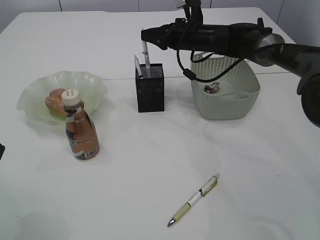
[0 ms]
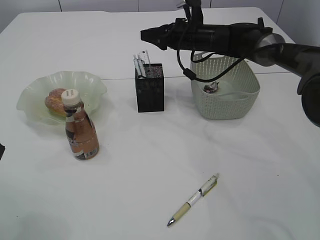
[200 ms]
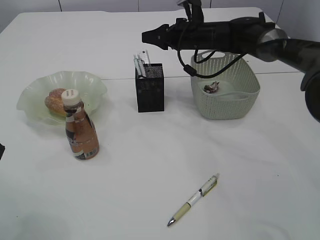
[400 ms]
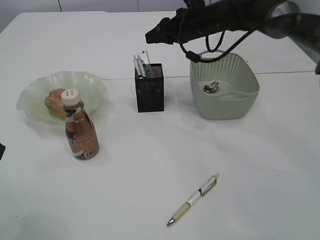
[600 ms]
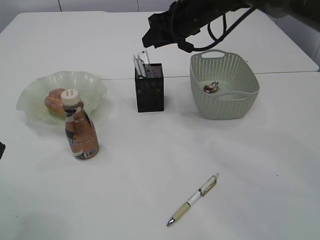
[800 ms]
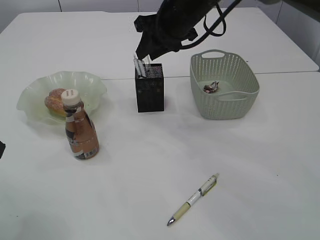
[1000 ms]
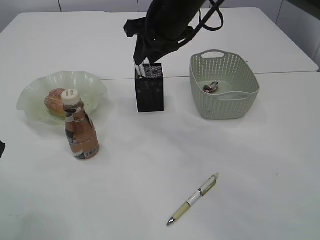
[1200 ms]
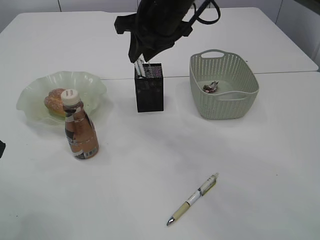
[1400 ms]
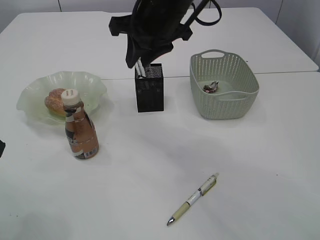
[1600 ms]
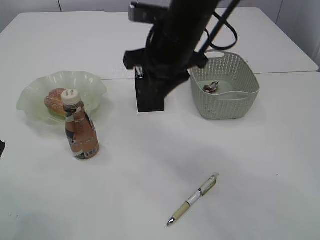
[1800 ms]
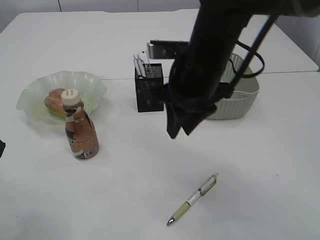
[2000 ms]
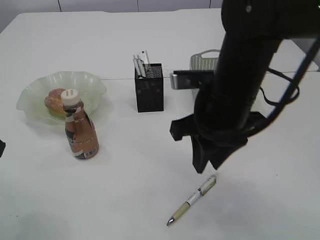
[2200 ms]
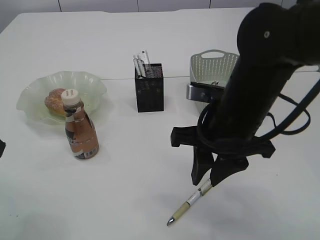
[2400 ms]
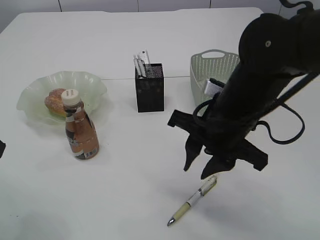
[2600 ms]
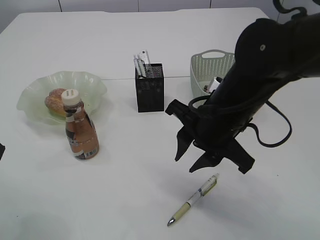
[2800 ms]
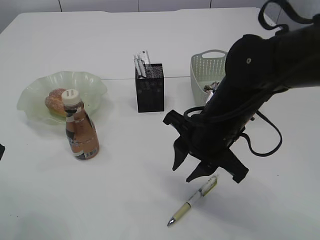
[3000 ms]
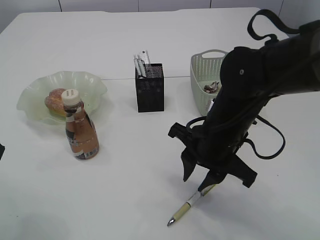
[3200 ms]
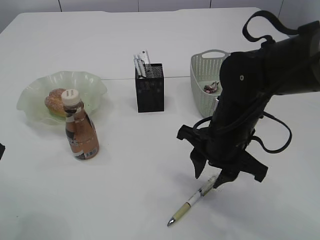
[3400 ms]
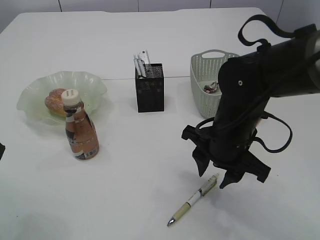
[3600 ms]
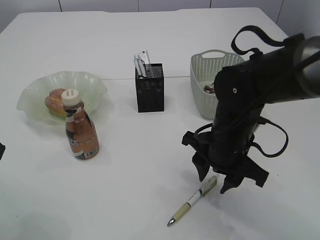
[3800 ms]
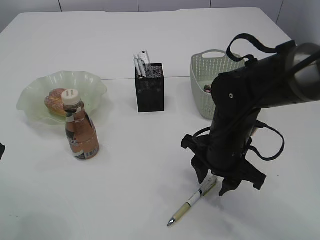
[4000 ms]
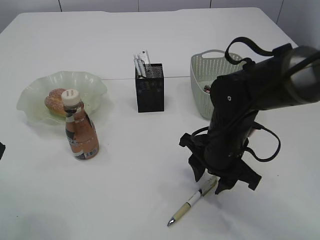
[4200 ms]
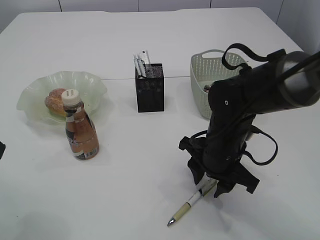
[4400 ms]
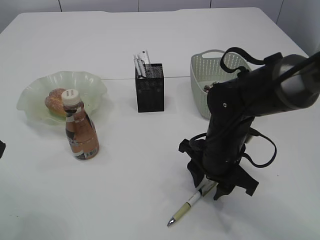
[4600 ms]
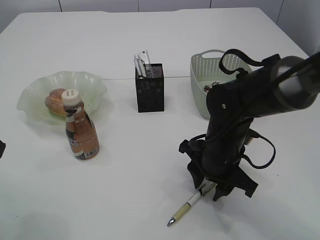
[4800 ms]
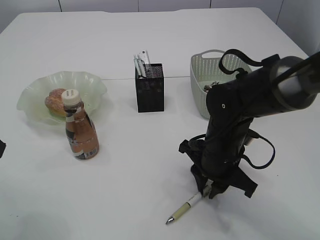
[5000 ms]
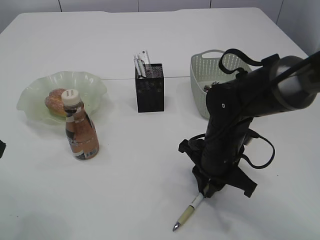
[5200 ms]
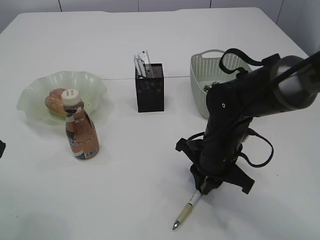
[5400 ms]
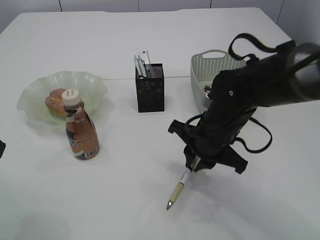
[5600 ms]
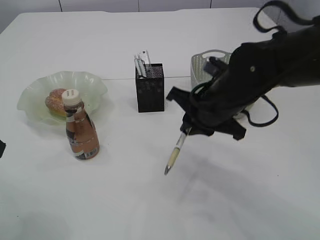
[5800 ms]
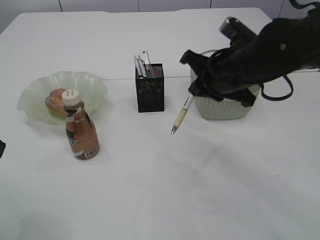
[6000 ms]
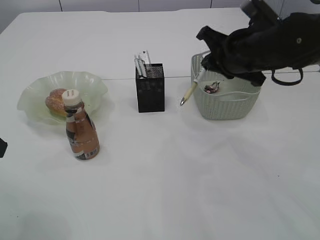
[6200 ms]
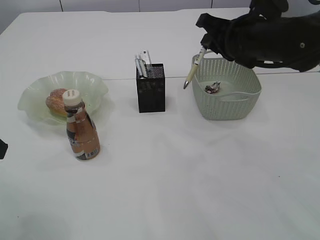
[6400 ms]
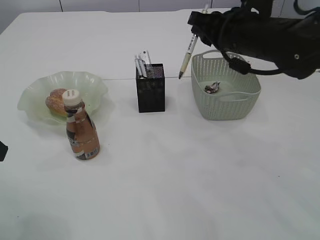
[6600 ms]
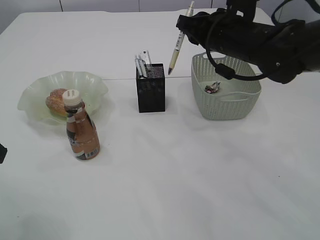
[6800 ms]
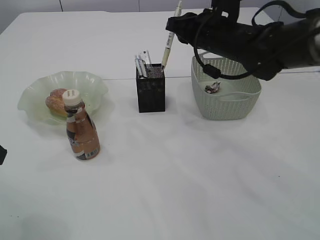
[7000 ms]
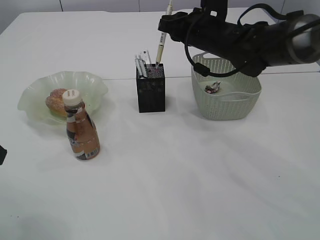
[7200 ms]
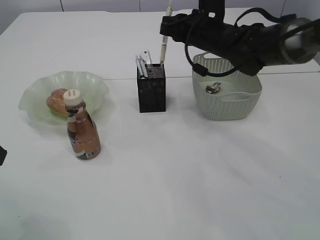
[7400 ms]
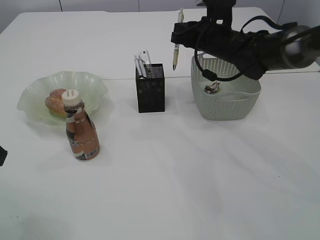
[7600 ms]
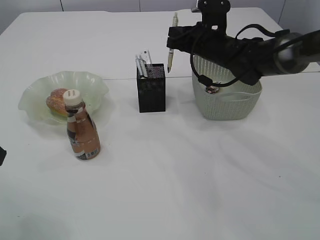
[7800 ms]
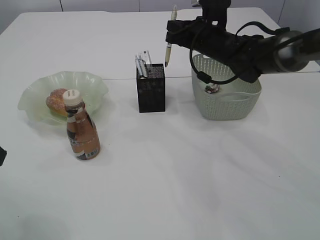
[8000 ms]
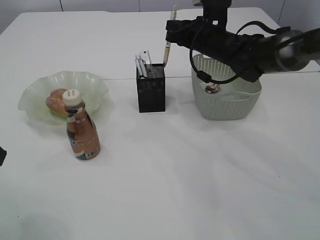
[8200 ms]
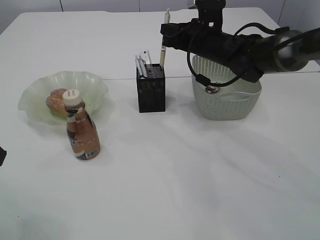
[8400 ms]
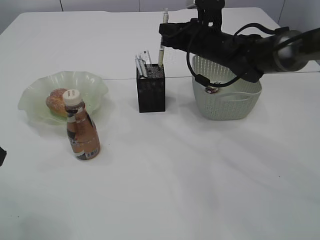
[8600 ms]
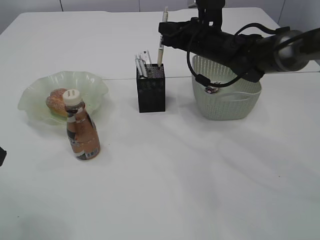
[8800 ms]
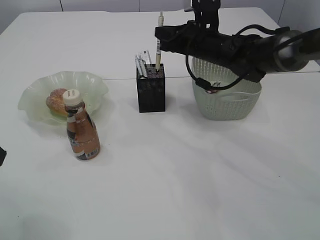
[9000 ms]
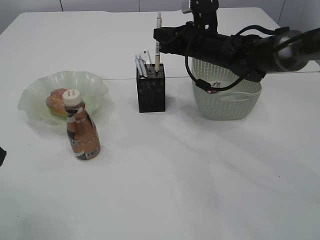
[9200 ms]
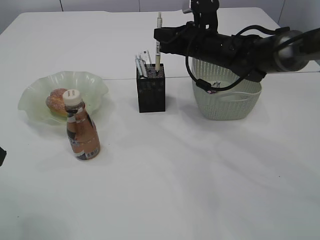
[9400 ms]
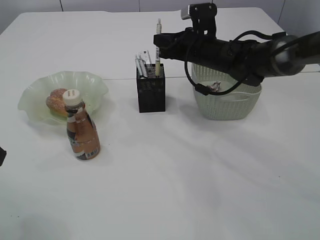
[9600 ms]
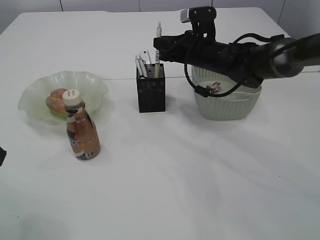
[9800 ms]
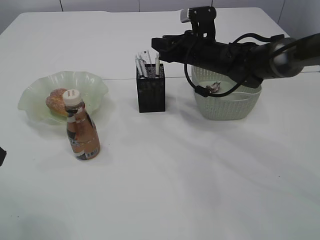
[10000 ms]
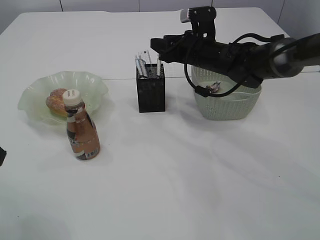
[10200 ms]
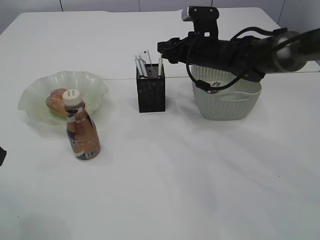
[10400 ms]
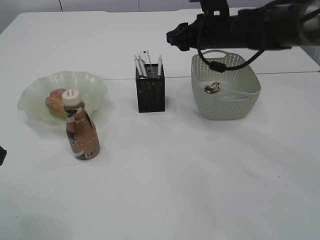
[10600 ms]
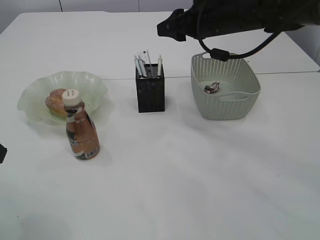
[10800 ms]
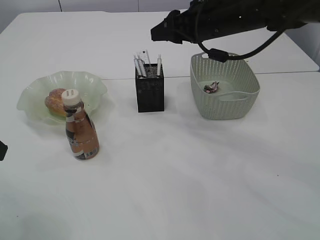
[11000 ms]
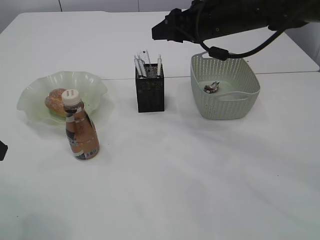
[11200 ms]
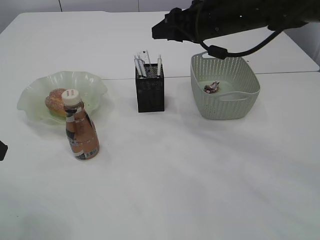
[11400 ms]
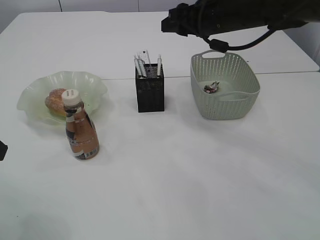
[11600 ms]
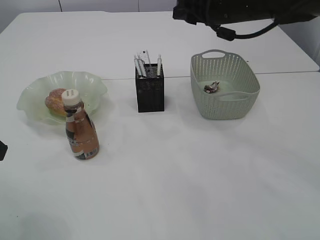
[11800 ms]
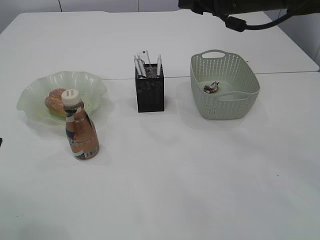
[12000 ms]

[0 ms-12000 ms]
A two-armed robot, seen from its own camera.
Step, 800 ms to 5600 ms: Pick up the pen with right arm.
Step, 5800 ms to 11800 ms: Place the pen into the pen holder.
0 ms to 1600 ms: The right gripper shifts approximately 20 cm backward, upward and to the left.
1600 ms to 3000 ms: The right gripper goes about 20 cm downward, backward and to the right.
3000 ms to 4400 ms: The right gripper is displaced downward by about 5 cm.
4400 ms to 6000 ms: The right gripper travels upward by roughly 10 cm, and closes its fingers.
6000 ms to 7600 ms: The right gripper shifts some 15 cm forward.
7600 ms to 9000 ms: The grippers make only small movements.
9000 ms to 10400 ms: The right gripper opens.
10400 ms to 12000 ms: The right gripper travels upward and backward by about 15 cm.

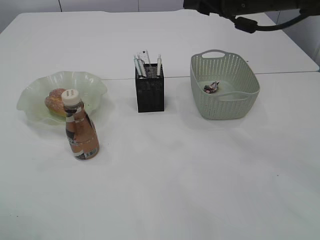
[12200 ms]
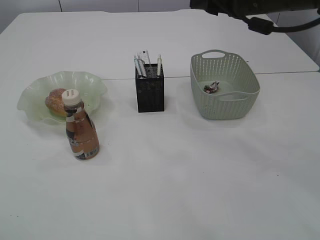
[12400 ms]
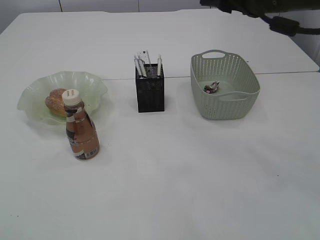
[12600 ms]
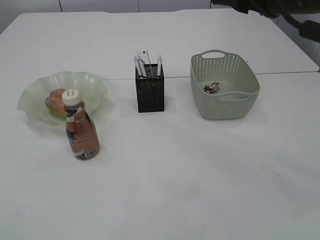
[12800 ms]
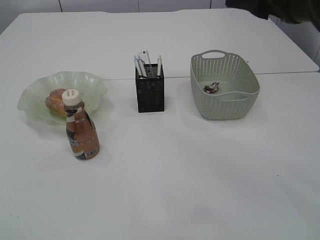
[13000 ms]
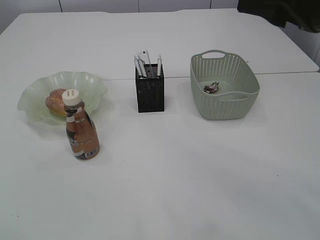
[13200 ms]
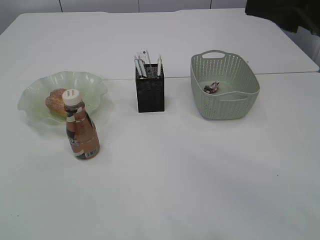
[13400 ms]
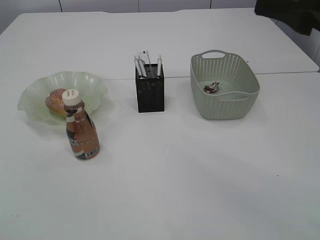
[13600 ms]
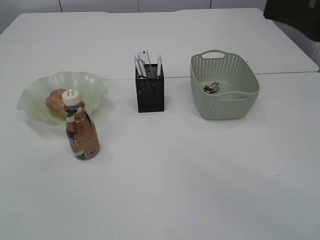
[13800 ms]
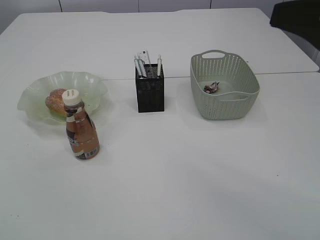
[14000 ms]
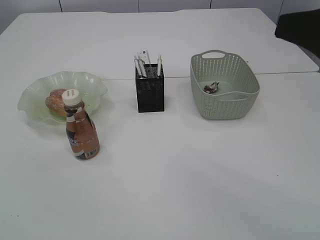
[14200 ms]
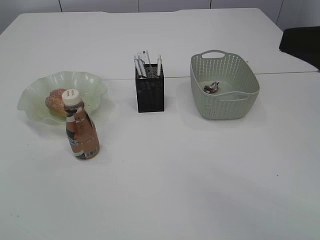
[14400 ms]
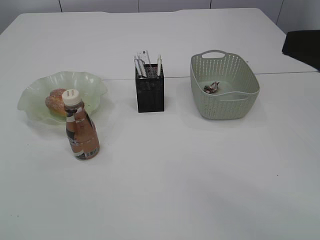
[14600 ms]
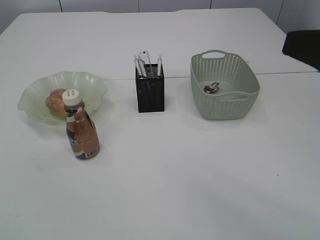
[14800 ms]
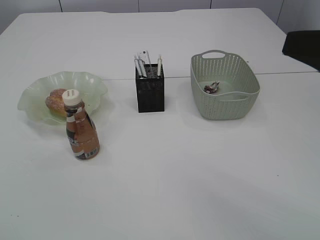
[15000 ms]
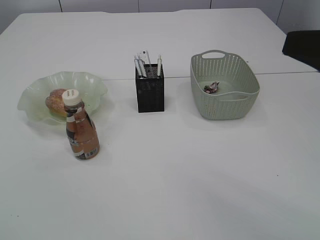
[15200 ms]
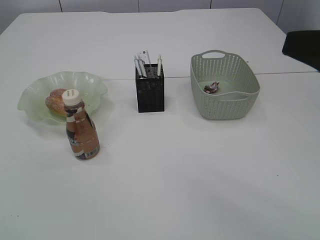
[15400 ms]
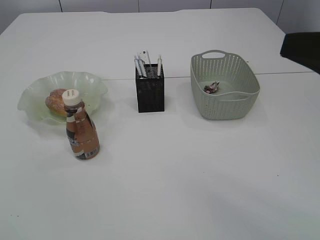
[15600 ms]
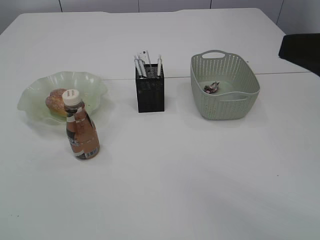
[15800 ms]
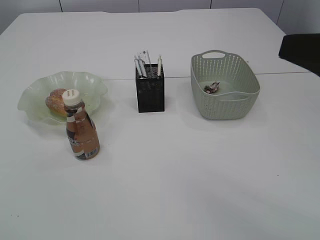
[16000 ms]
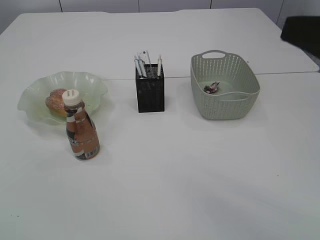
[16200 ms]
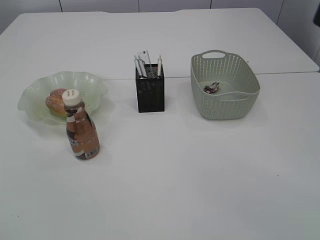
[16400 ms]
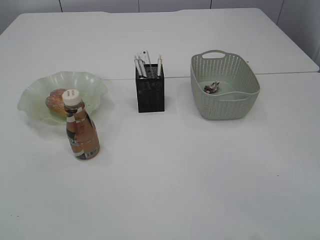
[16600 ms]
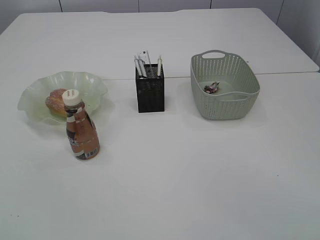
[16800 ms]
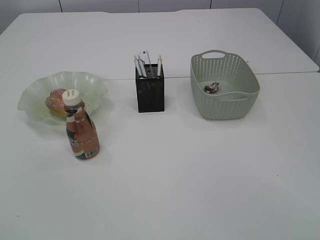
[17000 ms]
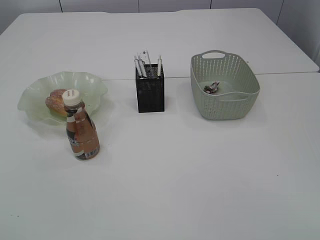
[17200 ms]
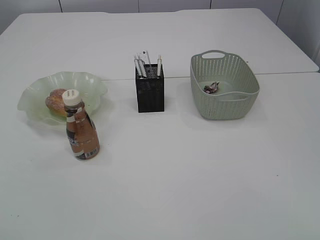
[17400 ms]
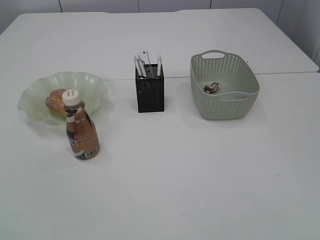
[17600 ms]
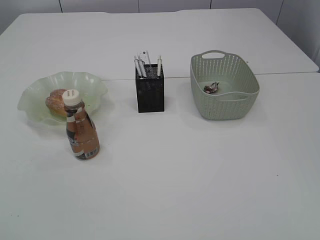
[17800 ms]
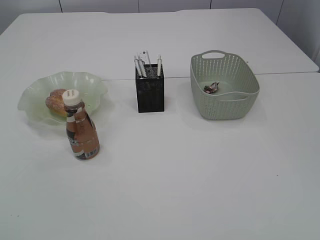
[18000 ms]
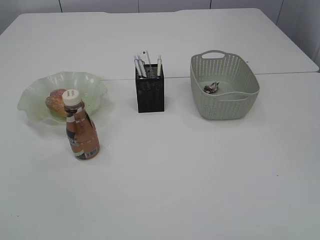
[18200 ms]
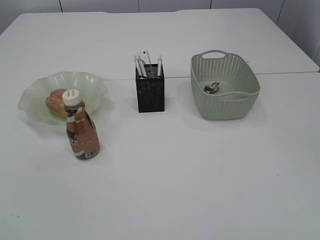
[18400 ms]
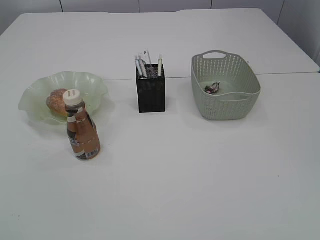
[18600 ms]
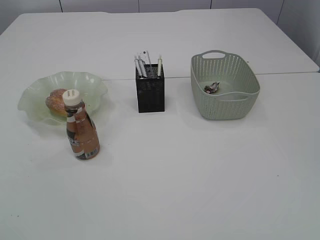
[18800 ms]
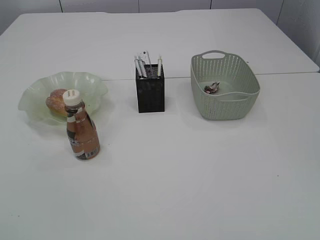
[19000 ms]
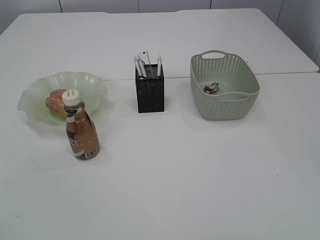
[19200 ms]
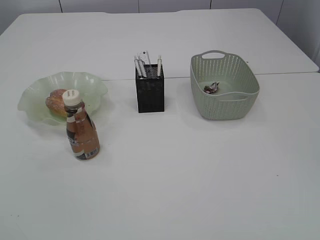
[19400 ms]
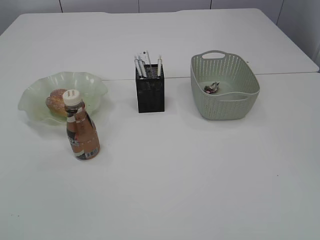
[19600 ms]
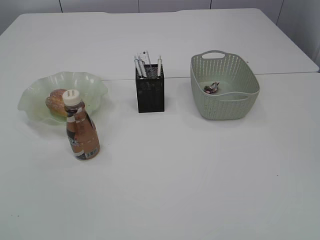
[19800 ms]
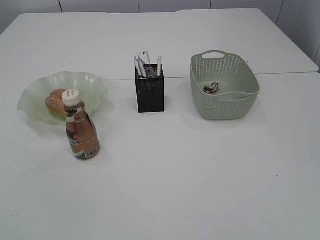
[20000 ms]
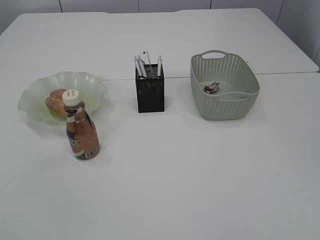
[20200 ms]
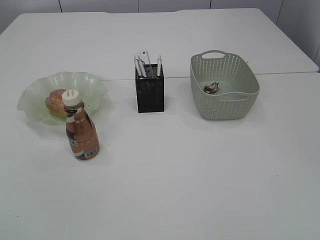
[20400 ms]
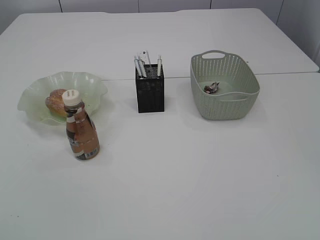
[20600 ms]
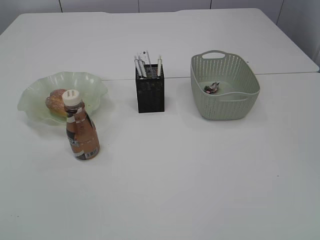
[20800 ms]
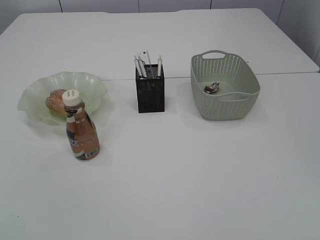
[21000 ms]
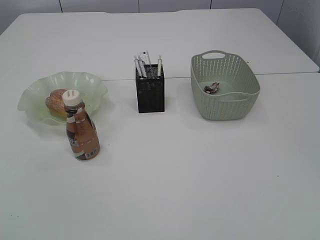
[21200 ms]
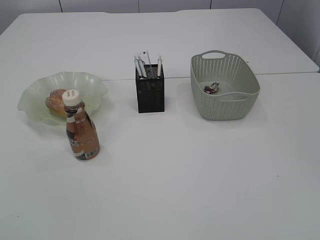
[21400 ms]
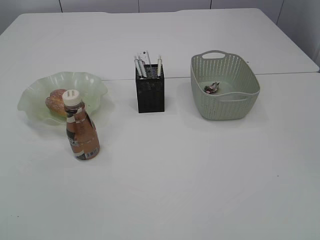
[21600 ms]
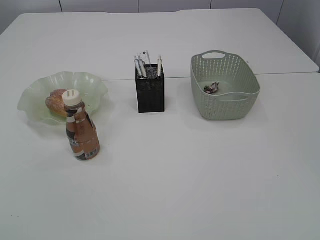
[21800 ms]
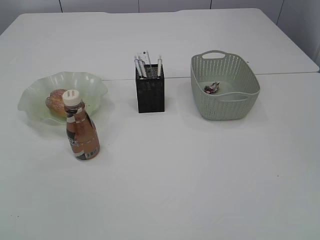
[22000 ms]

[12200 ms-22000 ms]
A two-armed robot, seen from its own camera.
12200 ms to 13600 ms: The two grippers go some 20 cm backward.
13600 ms to 15000 ms: The right gripper shifts about 5 cm backward.
15000 ms to 16400 ms: The grippers stay close to where they were, moving slightly.
